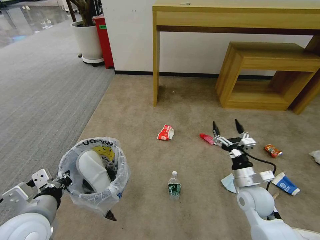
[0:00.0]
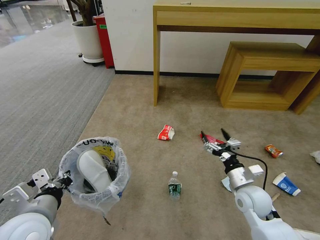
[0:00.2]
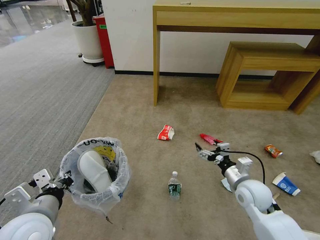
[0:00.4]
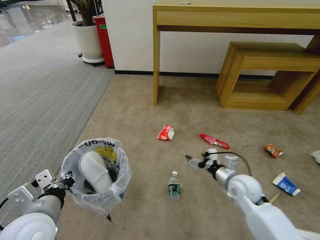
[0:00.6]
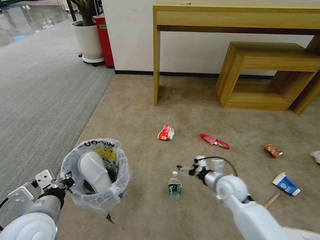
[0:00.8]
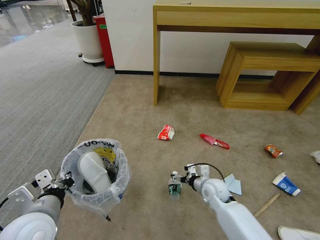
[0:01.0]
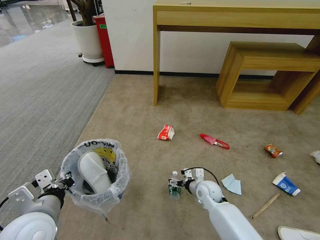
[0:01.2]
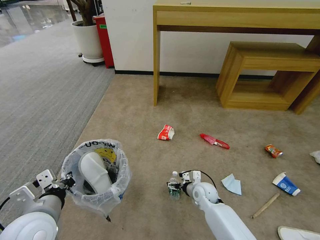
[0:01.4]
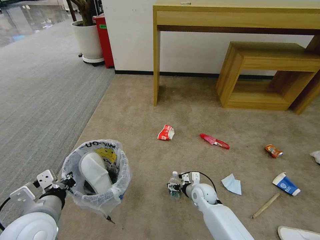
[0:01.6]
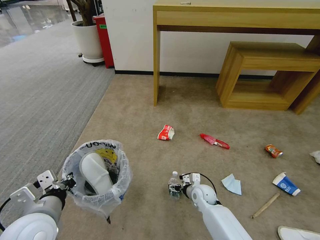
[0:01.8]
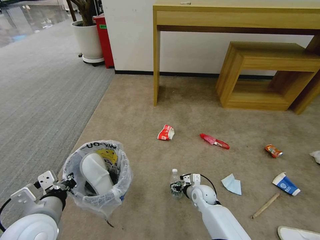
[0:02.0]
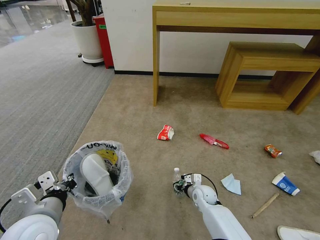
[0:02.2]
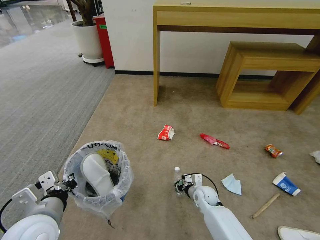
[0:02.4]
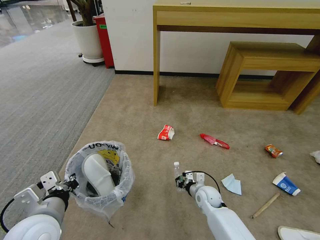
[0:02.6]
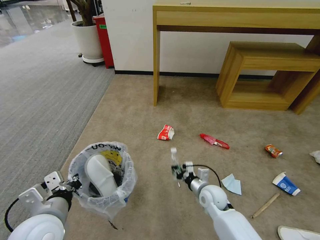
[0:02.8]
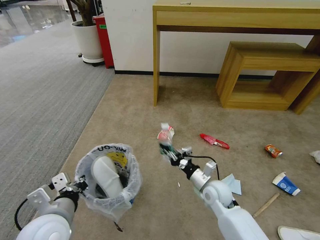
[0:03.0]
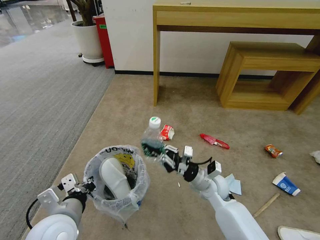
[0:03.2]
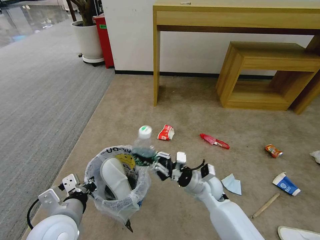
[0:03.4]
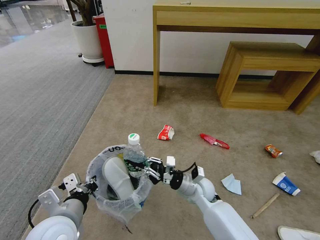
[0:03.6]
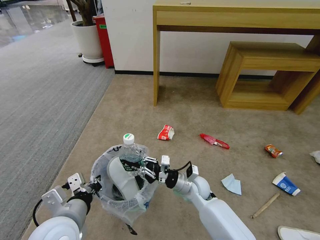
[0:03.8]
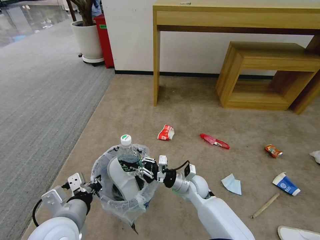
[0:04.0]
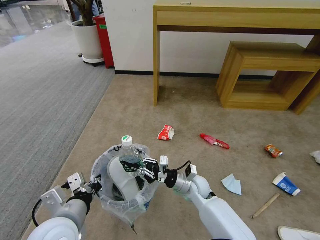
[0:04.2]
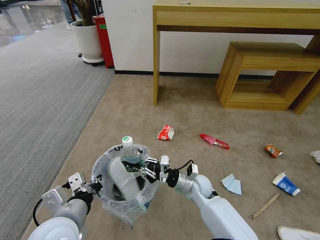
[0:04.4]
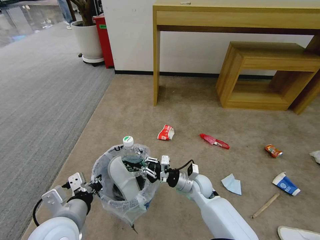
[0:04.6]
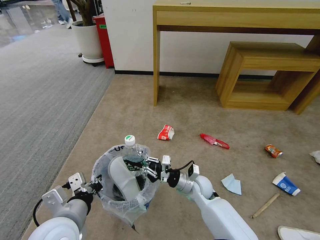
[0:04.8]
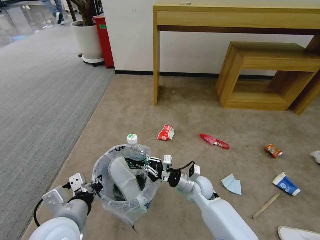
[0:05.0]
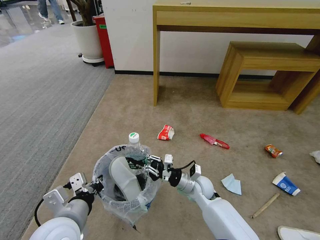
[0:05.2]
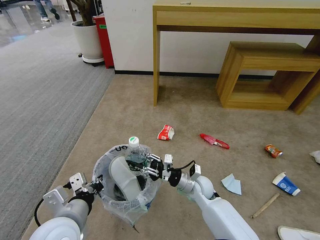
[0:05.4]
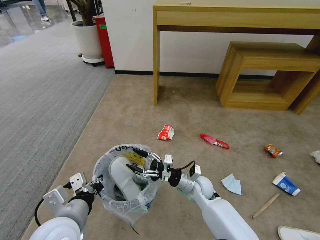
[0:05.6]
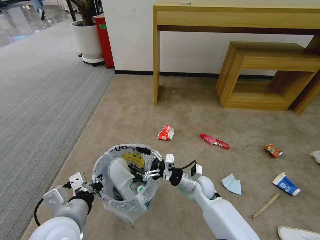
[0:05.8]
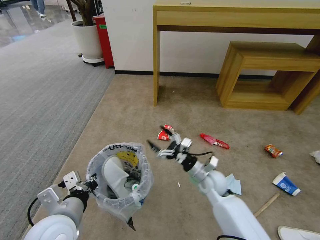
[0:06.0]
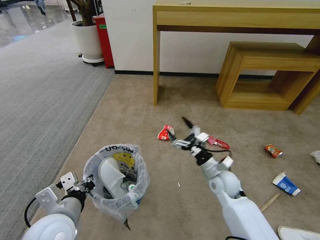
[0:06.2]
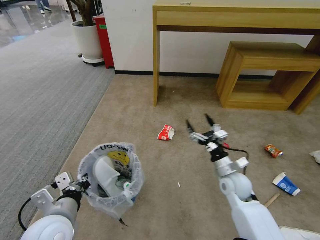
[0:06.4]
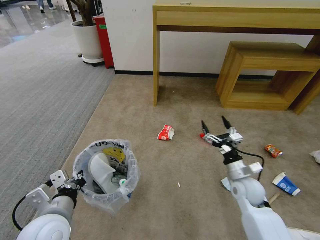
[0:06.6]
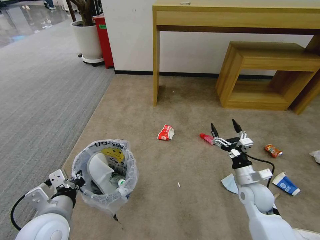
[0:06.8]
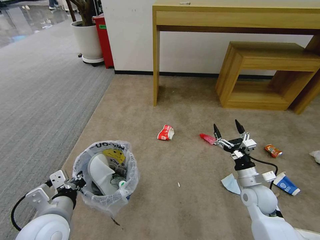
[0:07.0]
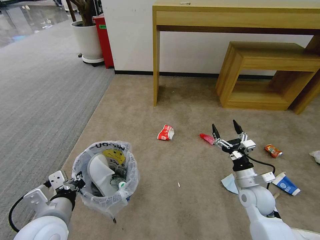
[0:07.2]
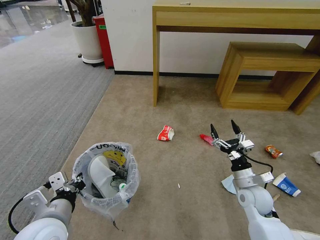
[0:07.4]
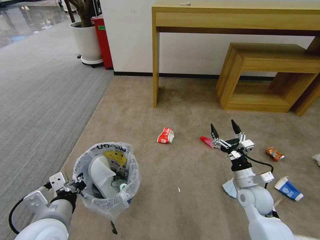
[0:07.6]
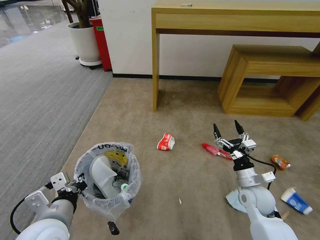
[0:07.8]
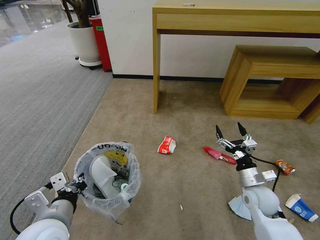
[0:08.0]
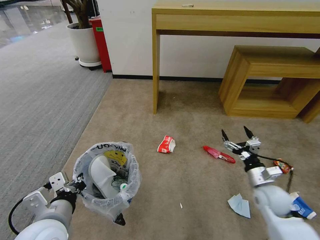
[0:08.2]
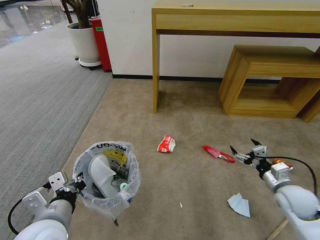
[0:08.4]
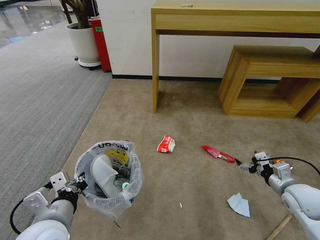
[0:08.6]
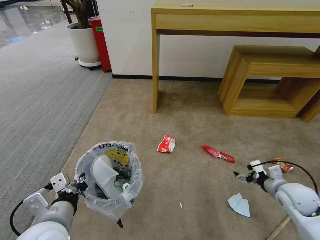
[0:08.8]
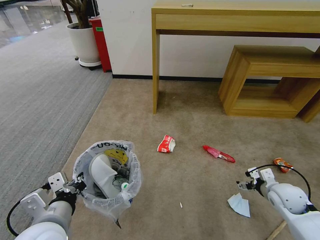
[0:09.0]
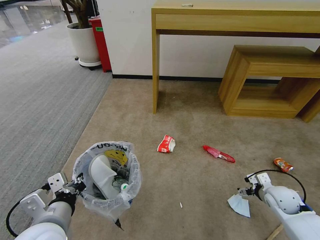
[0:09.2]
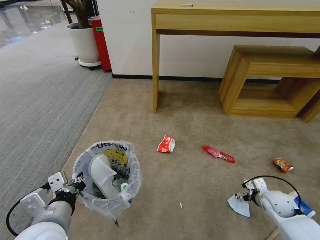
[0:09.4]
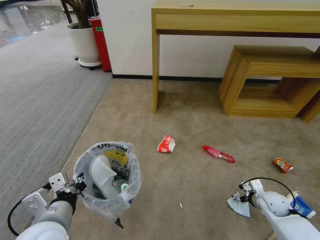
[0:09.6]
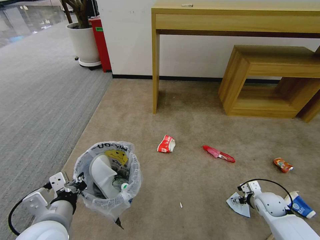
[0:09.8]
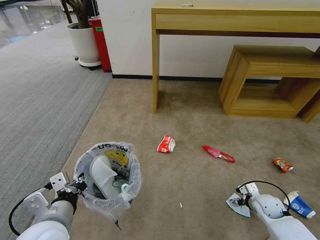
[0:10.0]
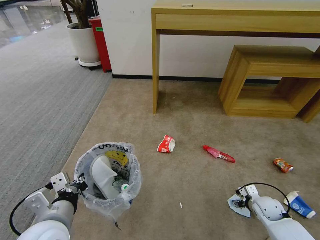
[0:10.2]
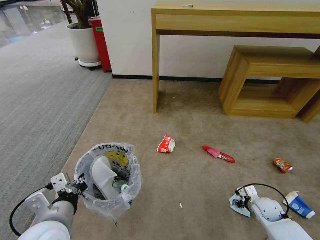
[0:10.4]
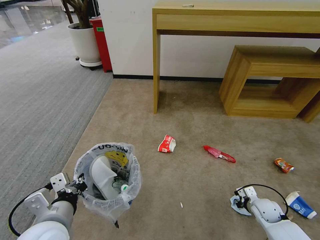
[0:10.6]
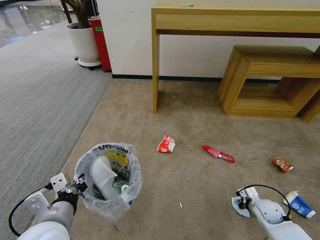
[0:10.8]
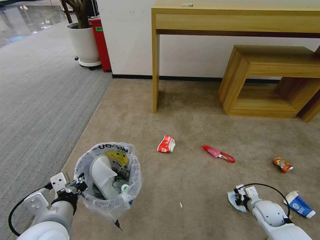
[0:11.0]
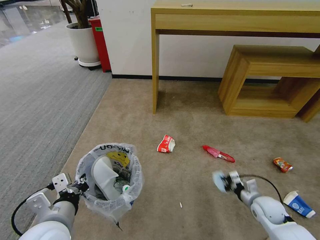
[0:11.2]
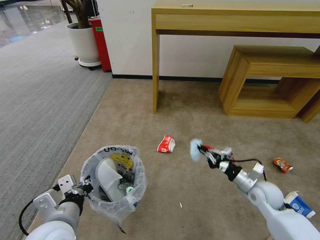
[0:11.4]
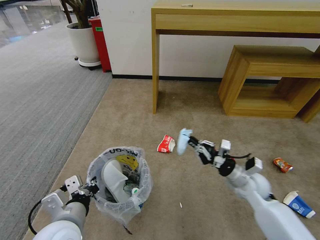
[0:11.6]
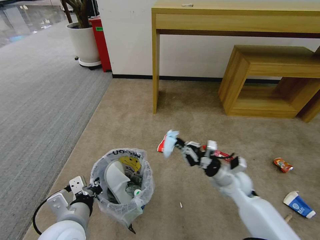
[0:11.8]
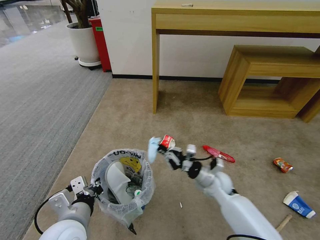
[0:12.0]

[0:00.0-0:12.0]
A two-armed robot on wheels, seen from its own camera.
Task of the whole recording: Pick up the trash bin and place the garbage on the floor into it.
0:00.0 to 0:01.6: The right gripper shifts approximately 20 cm downward, to the left and forward.
0:01.6 to 0:03.0: The right gripper heads upward, covering some 10 cm, and closes.
0:03.0 to 0:04.4: The right gripper goes roughly 5 cm to the left.
0:04.4 to 0:06.0: The right gripper opens.
0:06.0 to 0:07.6: The right gripper shifts about 15 cm to the right.
0:07.6 to 0:09.0: The right gripper is displaced to the right by roughly 10 cm.
0:09.0 to 0:10.4: The right gripper shifts some 15 cm downward, and closes its fingers.
0:10.4 to 0:12.0: The right gripper travels to the left and upward by approximately 25 cm, and closes its fingers.

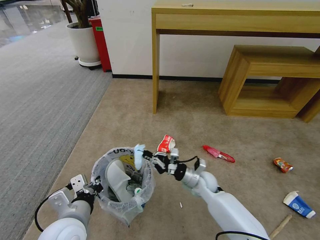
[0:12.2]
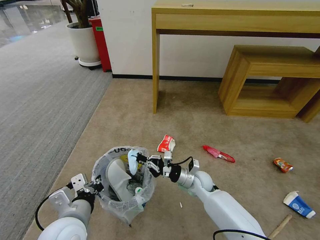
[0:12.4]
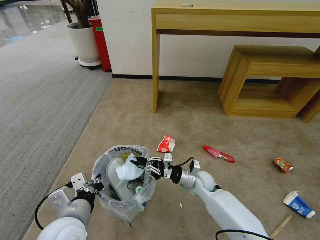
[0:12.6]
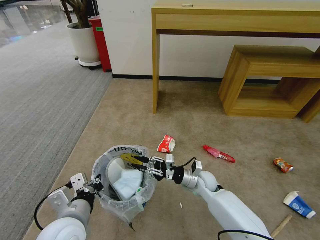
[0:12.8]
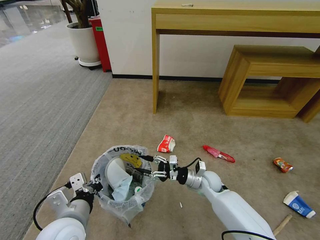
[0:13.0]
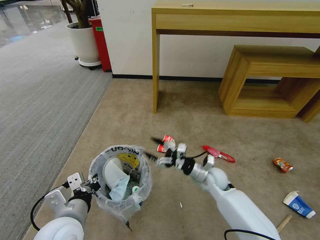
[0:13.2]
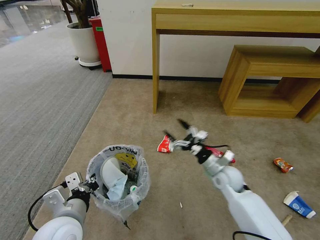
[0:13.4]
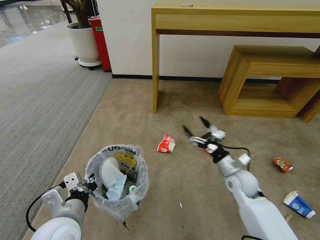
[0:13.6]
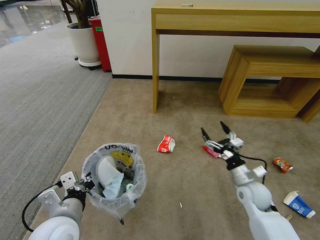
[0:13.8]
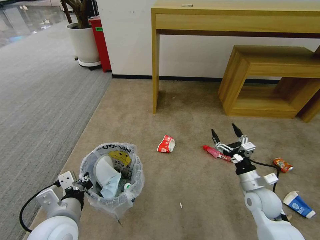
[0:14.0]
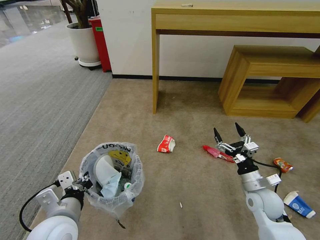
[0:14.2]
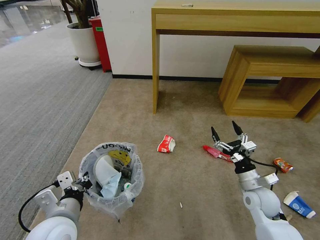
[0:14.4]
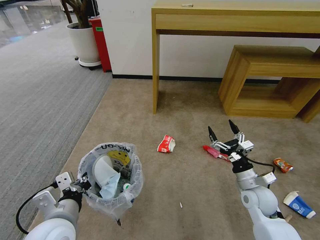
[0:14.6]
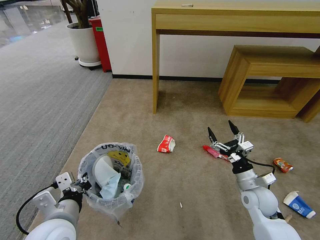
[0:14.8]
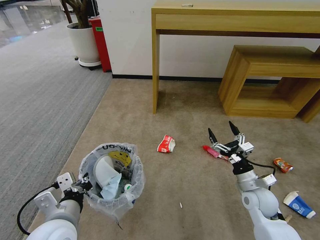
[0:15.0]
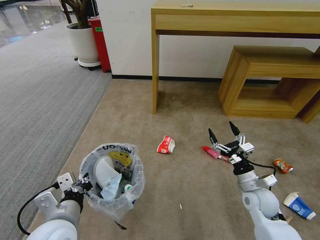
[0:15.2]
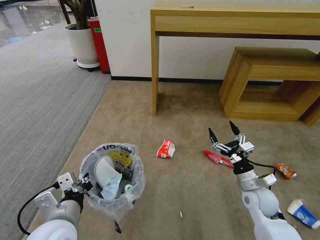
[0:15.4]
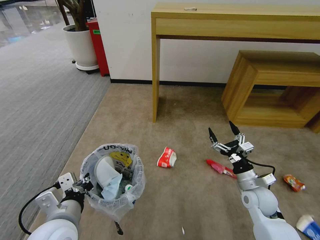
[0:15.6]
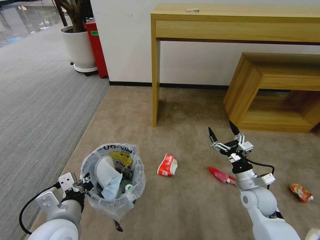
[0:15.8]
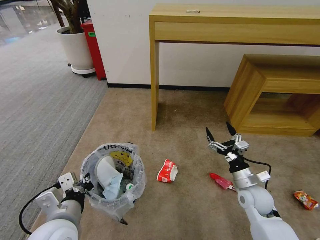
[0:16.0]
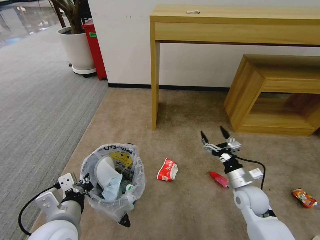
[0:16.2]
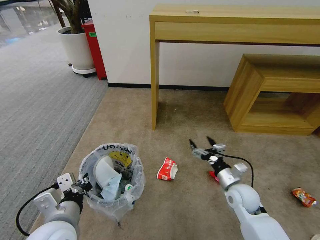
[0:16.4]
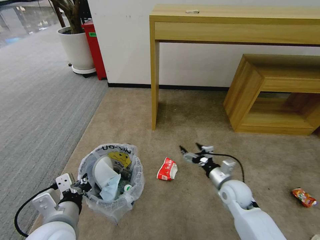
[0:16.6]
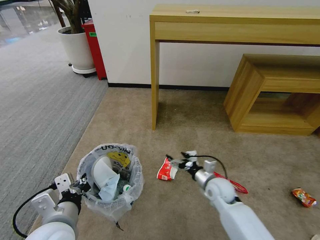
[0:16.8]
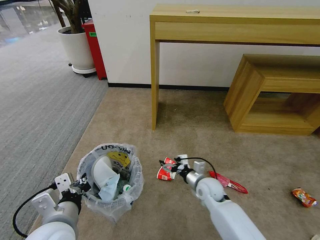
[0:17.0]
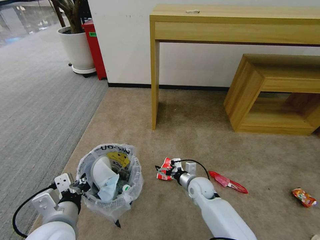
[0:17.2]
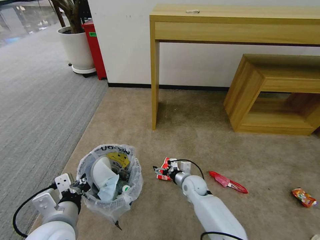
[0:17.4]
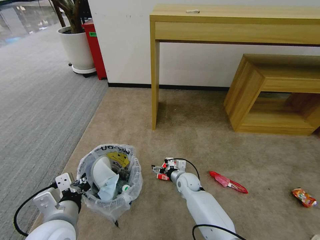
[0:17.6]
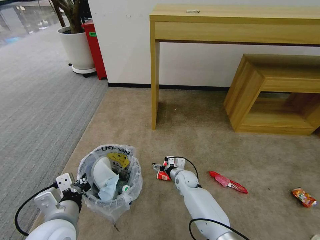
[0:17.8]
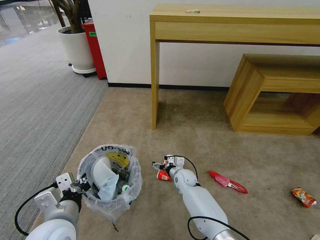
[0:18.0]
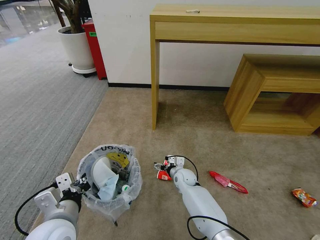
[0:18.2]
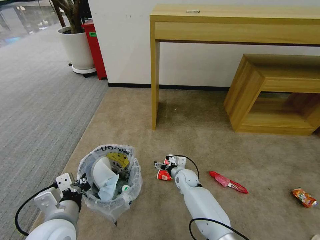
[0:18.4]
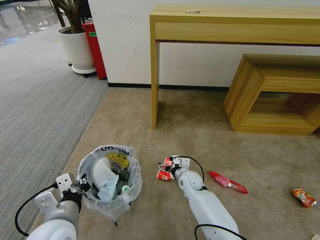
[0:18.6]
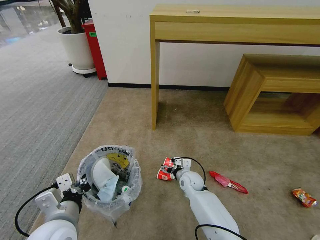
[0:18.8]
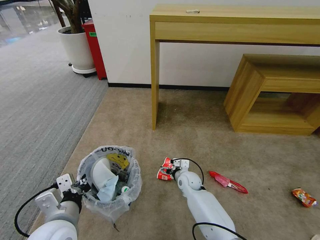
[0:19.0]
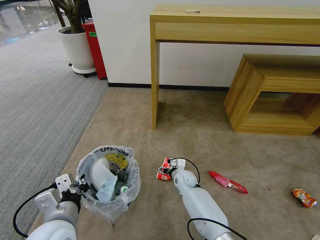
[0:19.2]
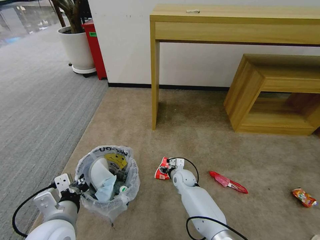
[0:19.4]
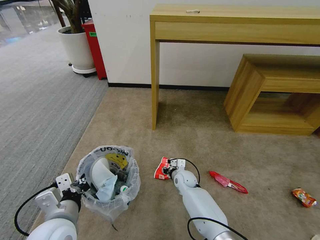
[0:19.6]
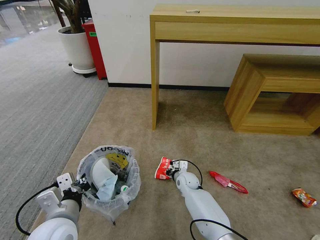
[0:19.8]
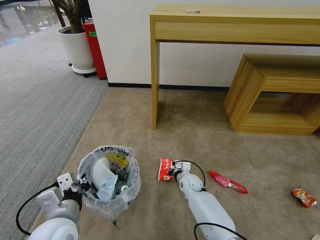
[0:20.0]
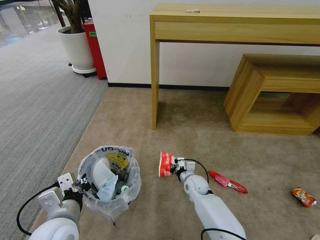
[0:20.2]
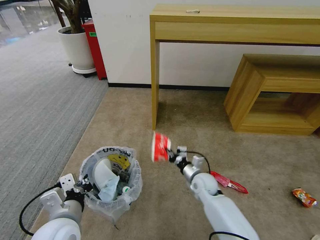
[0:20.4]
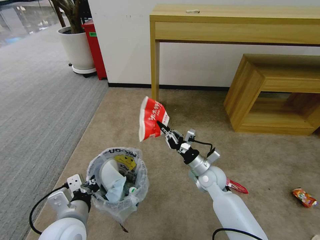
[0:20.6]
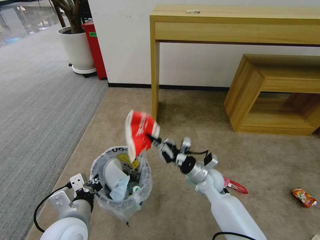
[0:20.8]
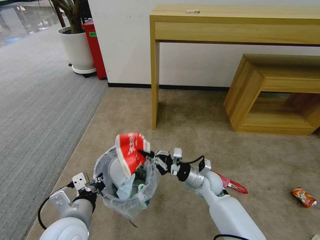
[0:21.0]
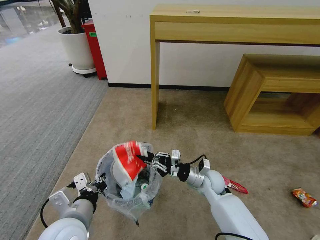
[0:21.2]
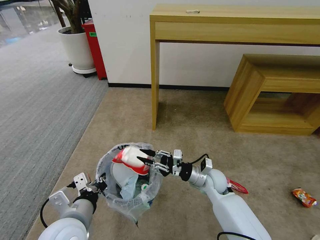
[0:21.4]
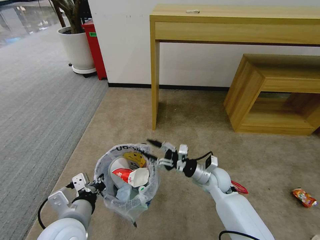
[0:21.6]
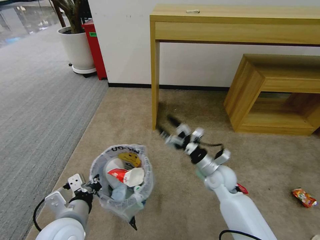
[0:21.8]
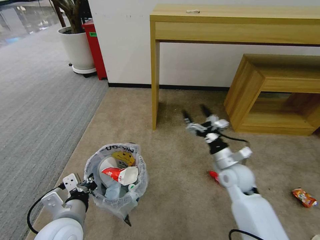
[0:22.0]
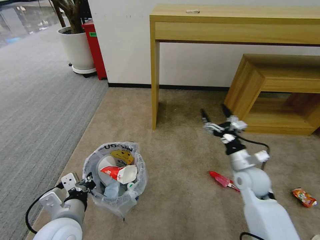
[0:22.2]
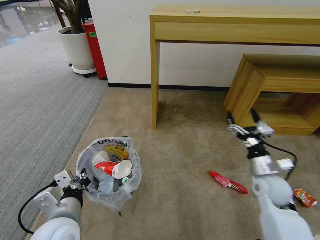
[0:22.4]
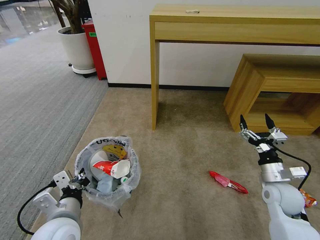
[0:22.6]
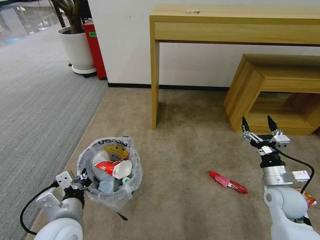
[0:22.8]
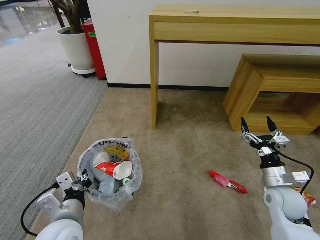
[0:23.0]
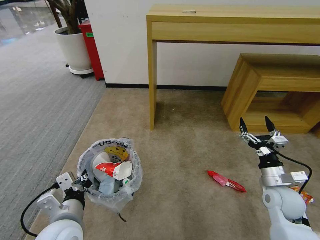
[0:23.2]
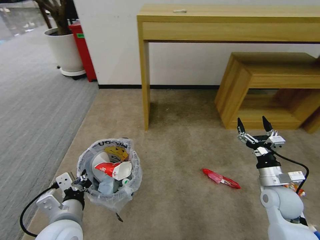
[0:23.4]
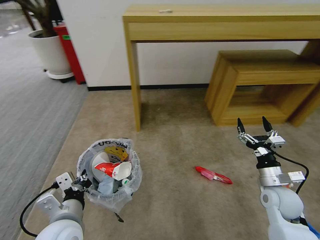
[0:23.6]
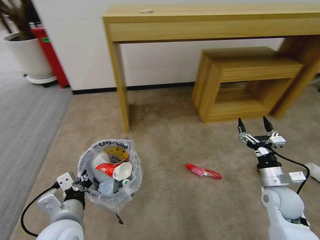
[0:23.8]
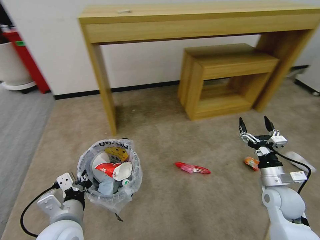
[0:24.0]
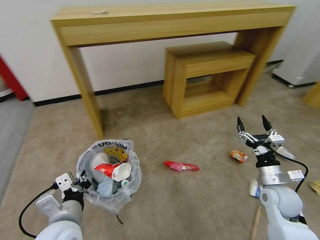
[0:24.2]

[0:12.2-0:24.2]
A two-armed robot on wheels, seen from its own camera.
Task of the whole recording: Pick up the trash bin and place the garbage on the floor into it.
0:12.2 to 0:13.8: The right gripper goes approximately 15 cm to the right, and opens.
0:13.8 to 0:15.2: The grippers make only small movements.
0:15.2 to 0:16.6: The right gripper moves to the left, some 5 cm.
0:16.6 to 0:18.2: The right gripper shifts some 25 cm to the left, forward and downward.
0:18.2 to 0:19.8: The right gripper closes.
0:19.8 to 0:21.2: The right gripper heads upward, to the right and backward, covering roughly 15 cm.
0:21.2 to 0:22.6: The right gripper goes some 20 cm to the right, and opens its fingers.
